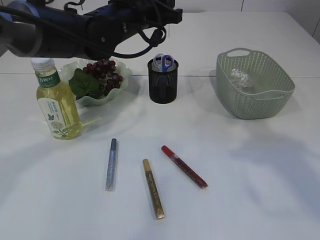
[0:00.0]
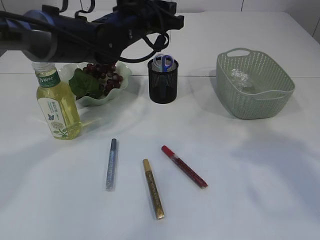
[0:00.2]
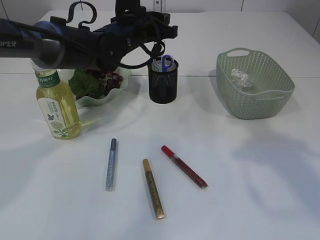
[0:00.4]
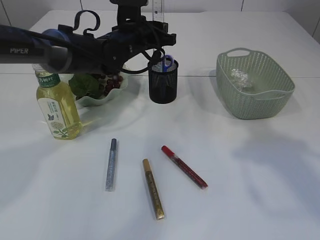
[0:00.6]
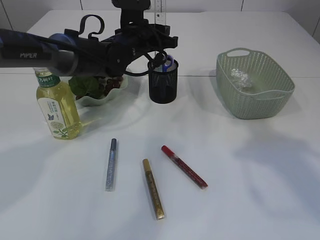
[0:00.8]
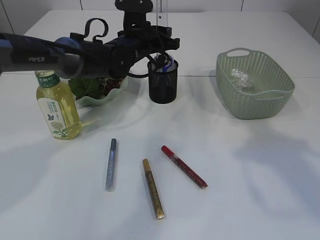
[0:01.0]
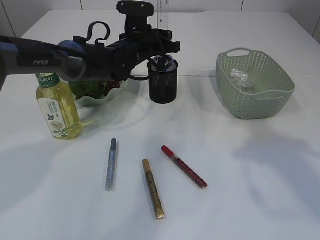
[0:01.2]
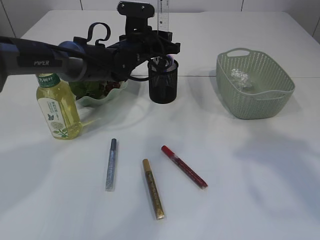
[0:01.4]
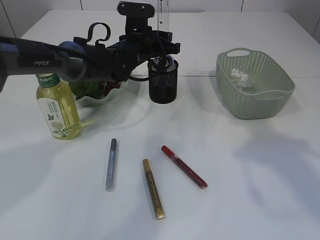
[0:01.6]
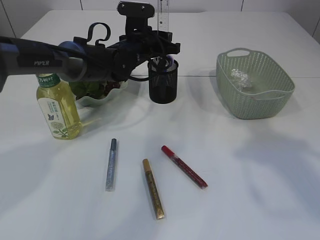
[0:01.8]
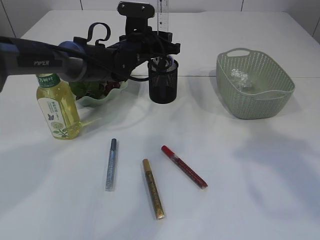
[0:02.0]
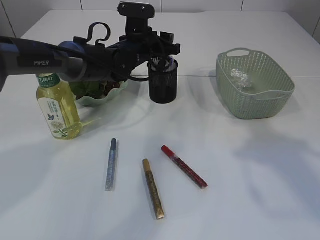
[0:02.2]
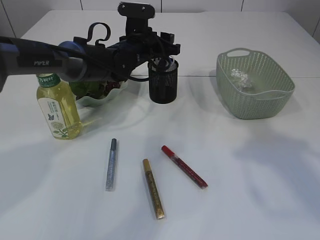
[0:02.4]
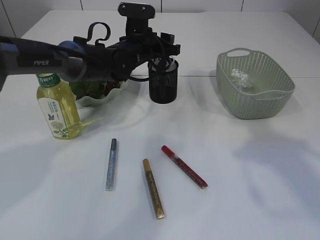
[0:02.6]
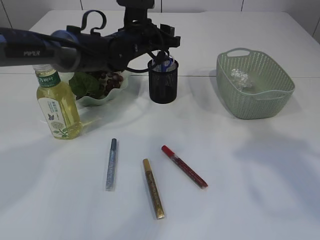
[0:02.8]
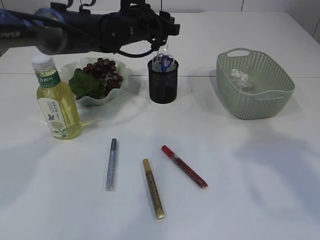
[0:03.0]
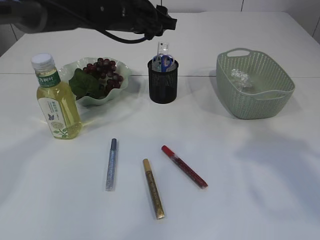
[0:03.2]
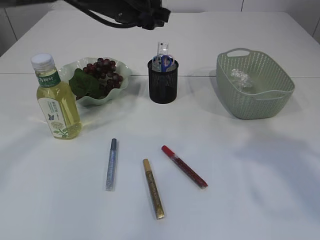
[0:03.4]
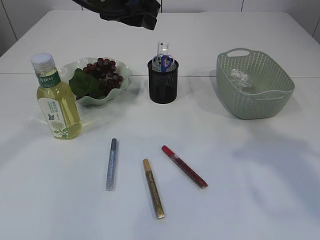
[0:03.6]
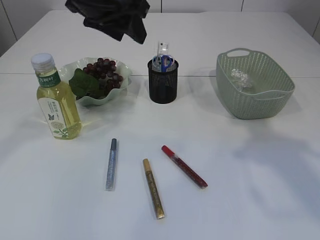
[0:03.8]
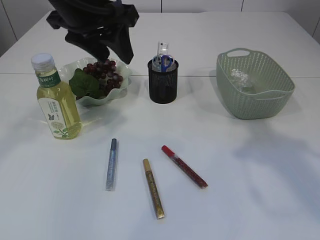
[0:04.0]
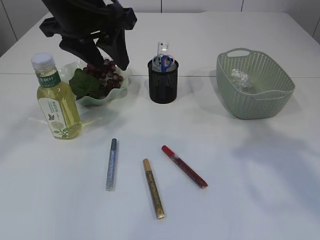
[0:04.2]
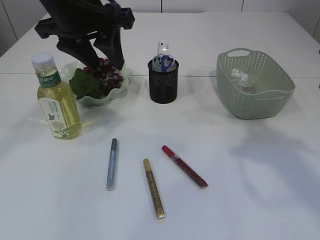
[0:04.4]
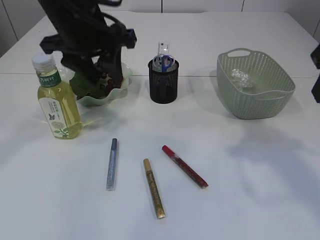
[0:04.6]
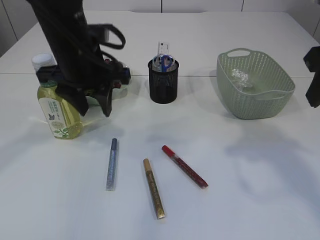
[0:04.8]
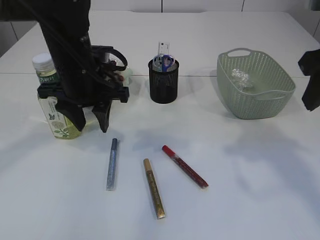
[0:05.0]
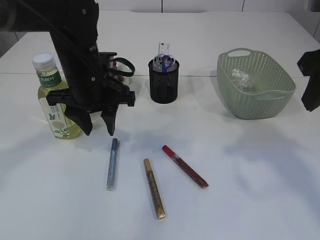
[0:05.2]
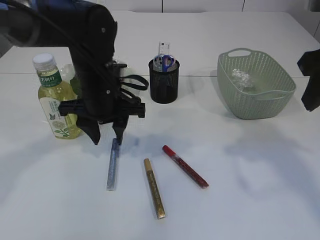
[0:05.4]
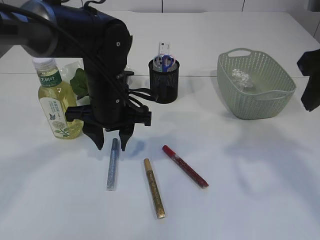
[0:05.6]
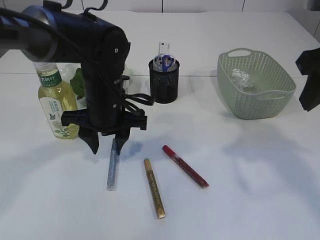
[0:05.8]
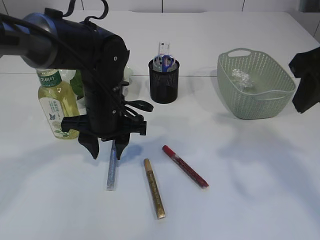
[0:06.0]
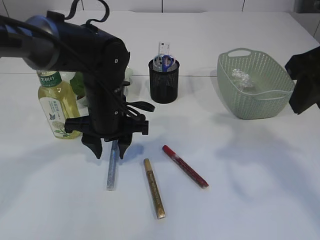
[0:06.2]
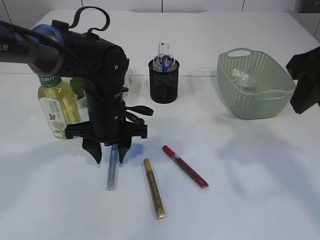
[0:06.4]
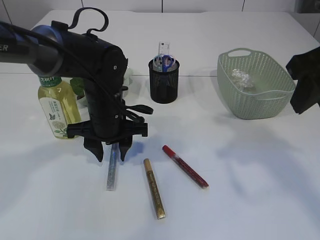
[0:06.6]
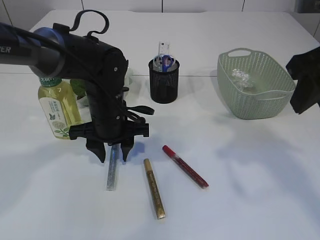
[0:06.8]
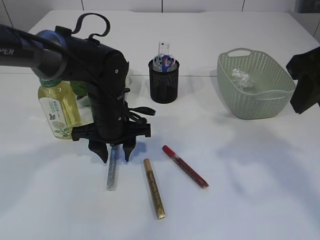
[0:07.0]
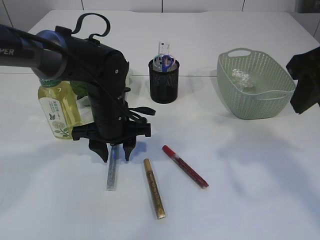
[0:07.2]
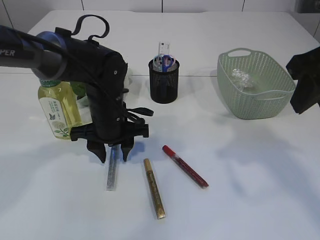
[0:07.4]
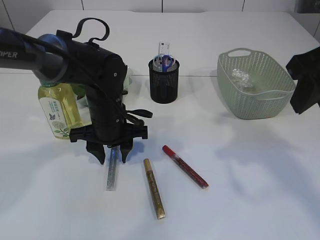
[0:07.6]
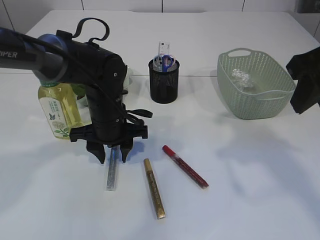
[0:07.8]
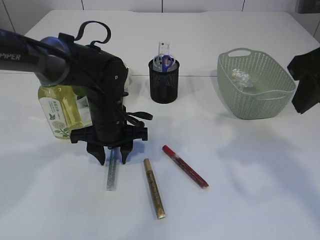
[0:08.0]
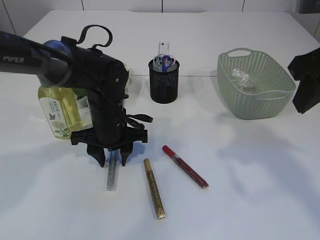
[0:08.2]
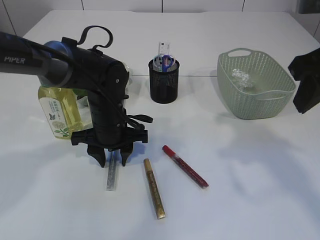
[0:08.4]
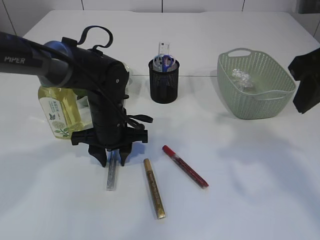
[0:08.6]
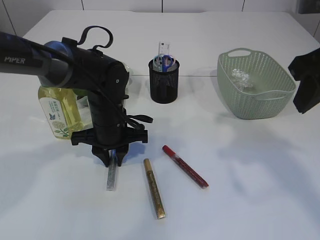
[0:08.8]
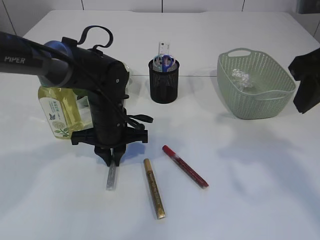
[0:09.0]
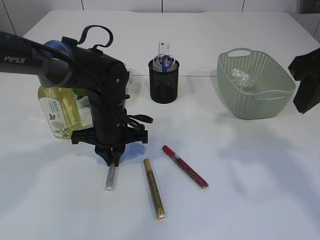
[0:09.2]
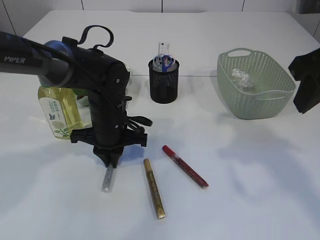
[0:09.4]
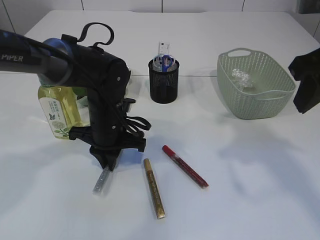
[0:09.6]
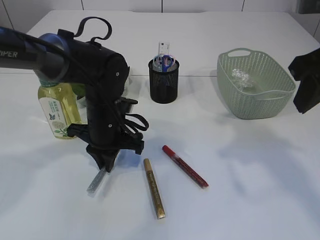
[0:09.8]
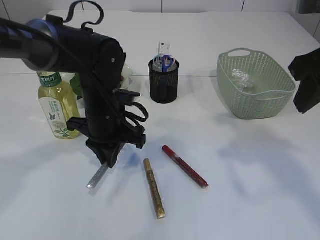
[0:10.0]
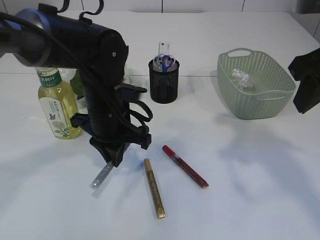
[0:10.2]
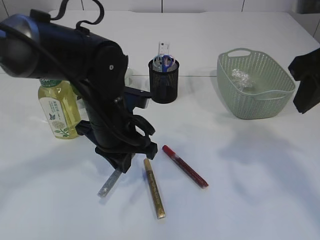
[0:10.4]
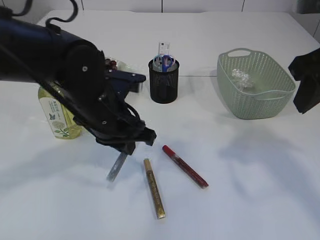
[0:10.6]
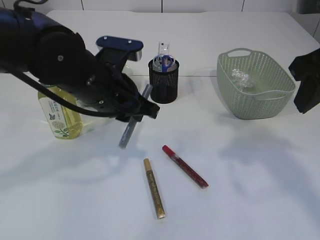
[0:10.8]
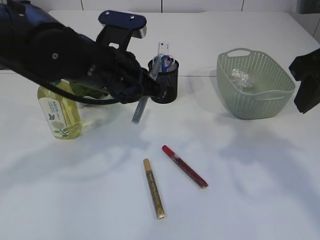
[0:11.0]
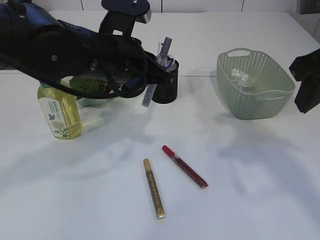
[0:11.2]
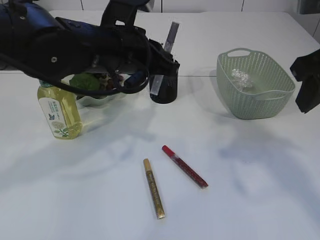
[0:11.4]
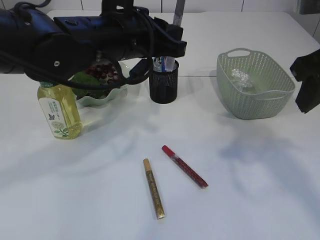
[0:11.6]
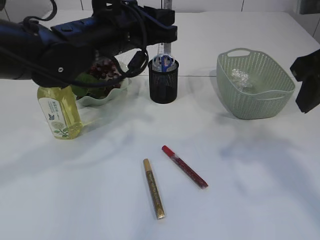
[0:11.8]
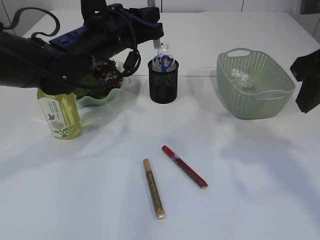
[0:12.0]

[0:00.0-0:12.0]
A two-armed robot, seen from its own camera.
Step, 0:00.0 to 0:03.0: Place the ruler into the pen holder.
Step, 0:03.2 to 0:10.6: pick up the silver glue.
0:00.0 to 0:01.6: The left gripper travels downward and forward by about 10 cm.
0:01.6 to 0:03.0: The left gripper changes place by about 5 cm.
0:03.0 to 0:04.4: The left gripper heads backward, upward and to the left, covering roughly 20 cm.
0:04.4 to 0:06.0: The left gripper shifts approximately 15 cm downward.
0:06.0 to 0:07.6: The grippers move only a little.
0:07.6 to 0:09.0: The left gripper closes up.
0:09.0 to 0:10.4: The left gripper is displaced upward and backward by about 10 cm.
0:10.4 to 0:12.0: The left gripper heads upward and forward, covering approximately 10 cm.

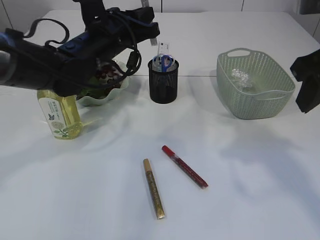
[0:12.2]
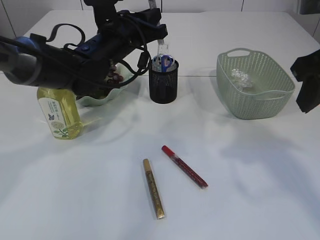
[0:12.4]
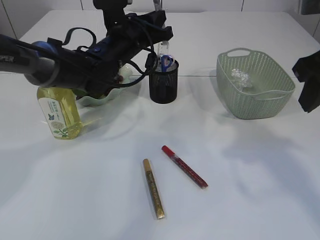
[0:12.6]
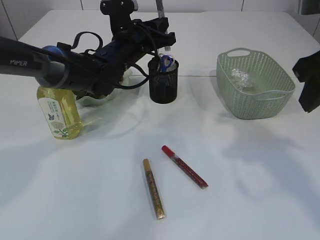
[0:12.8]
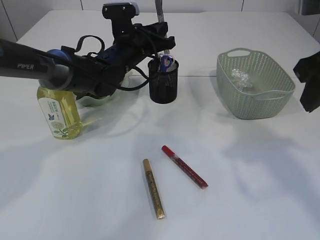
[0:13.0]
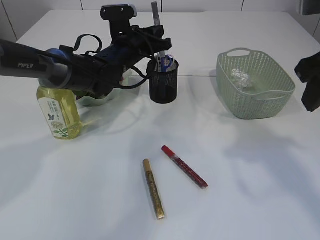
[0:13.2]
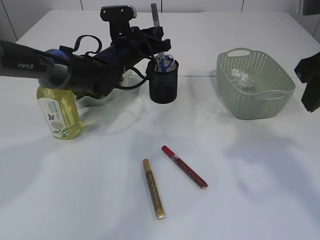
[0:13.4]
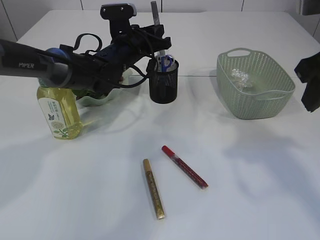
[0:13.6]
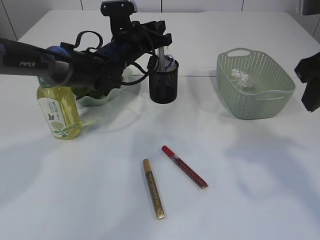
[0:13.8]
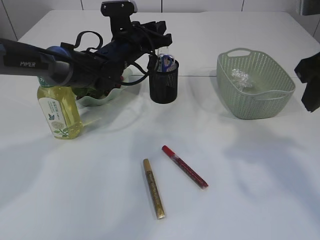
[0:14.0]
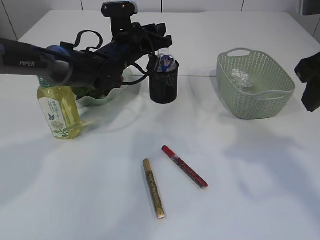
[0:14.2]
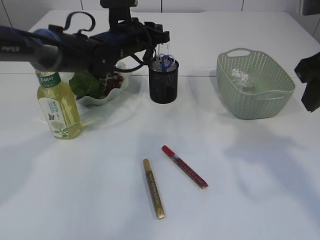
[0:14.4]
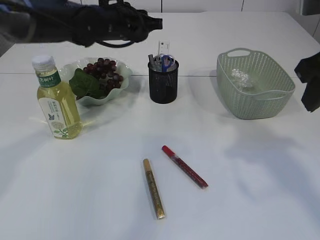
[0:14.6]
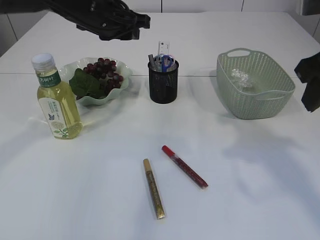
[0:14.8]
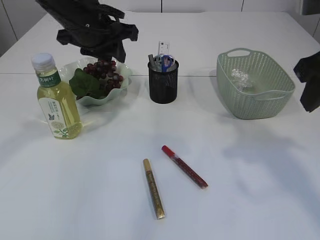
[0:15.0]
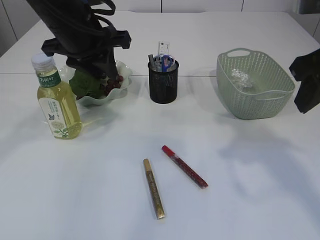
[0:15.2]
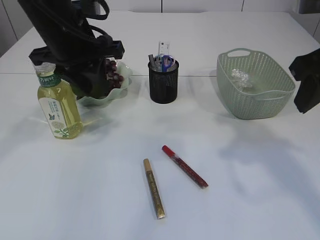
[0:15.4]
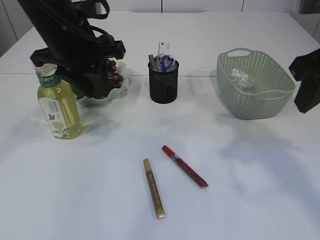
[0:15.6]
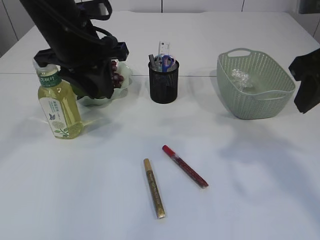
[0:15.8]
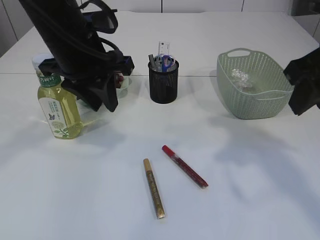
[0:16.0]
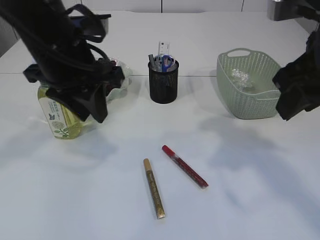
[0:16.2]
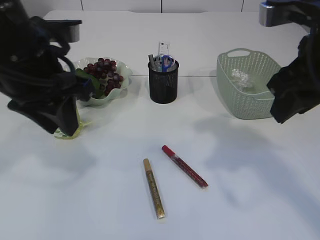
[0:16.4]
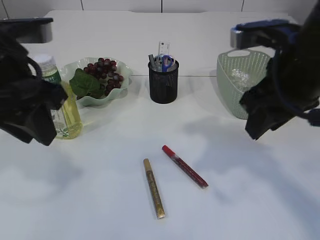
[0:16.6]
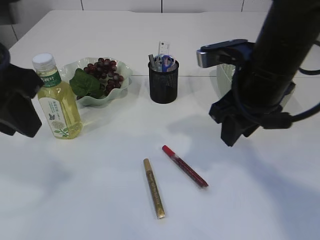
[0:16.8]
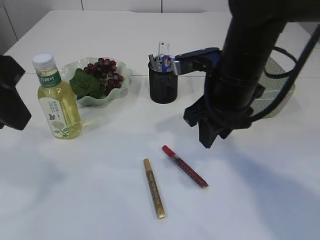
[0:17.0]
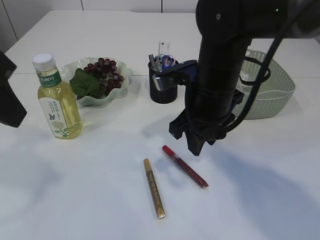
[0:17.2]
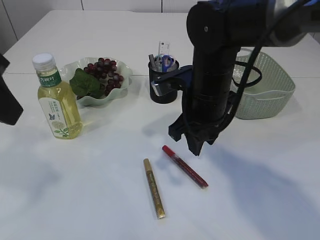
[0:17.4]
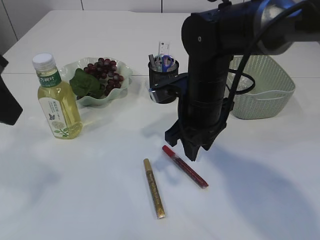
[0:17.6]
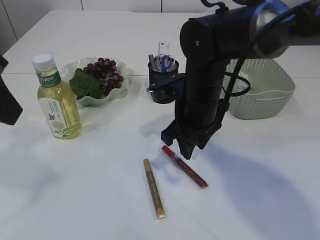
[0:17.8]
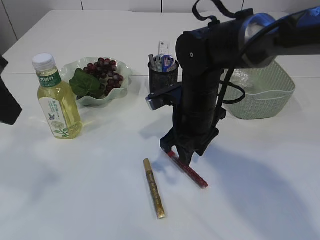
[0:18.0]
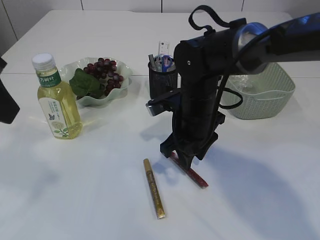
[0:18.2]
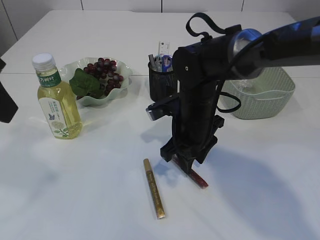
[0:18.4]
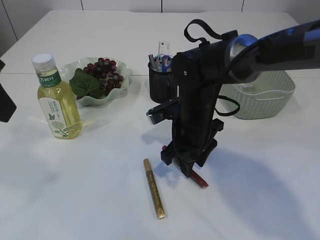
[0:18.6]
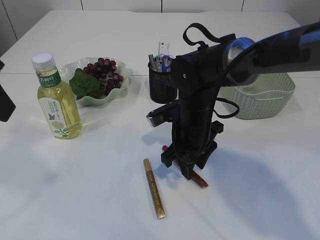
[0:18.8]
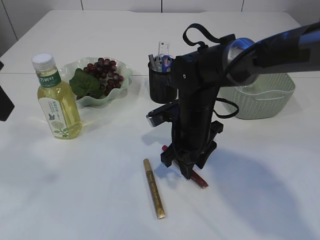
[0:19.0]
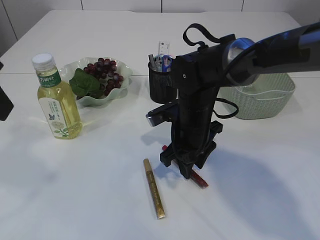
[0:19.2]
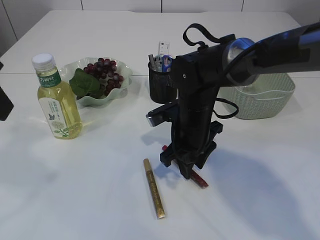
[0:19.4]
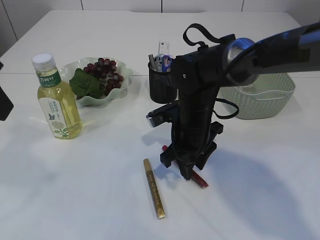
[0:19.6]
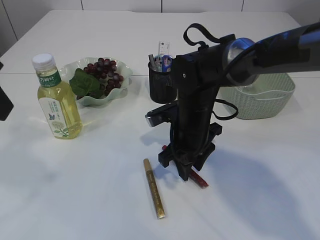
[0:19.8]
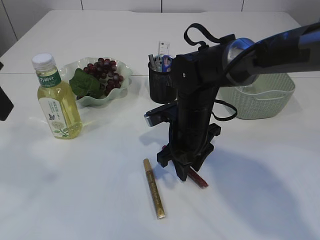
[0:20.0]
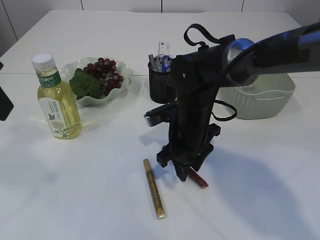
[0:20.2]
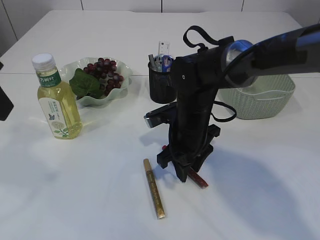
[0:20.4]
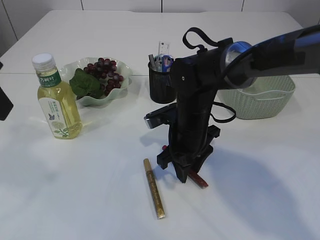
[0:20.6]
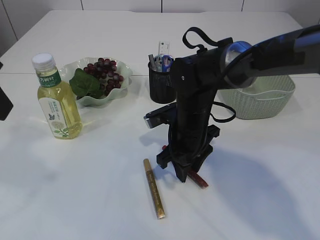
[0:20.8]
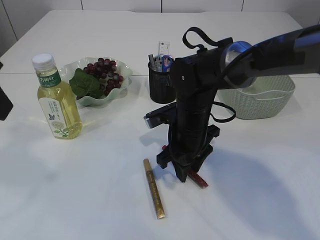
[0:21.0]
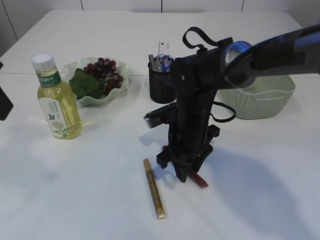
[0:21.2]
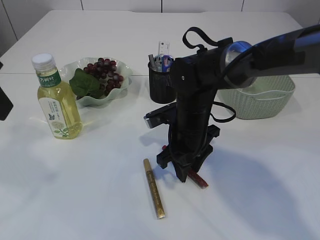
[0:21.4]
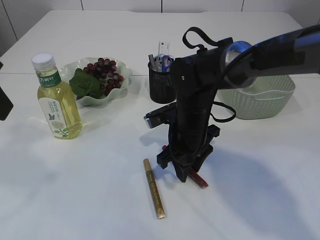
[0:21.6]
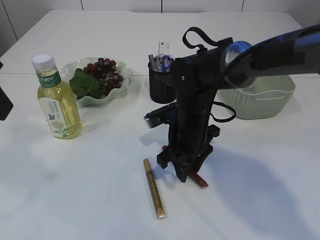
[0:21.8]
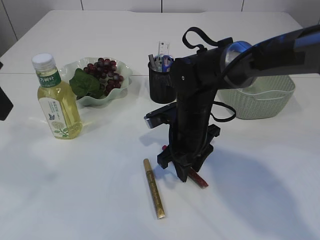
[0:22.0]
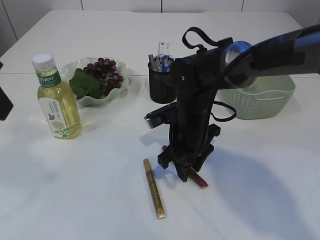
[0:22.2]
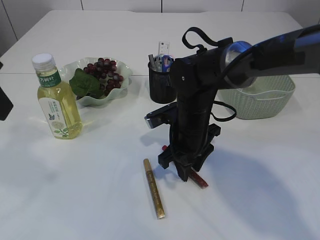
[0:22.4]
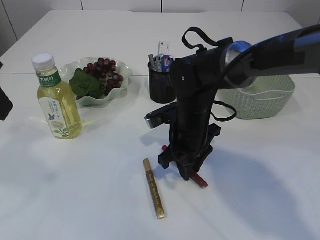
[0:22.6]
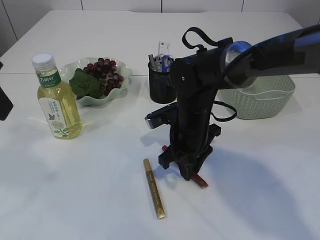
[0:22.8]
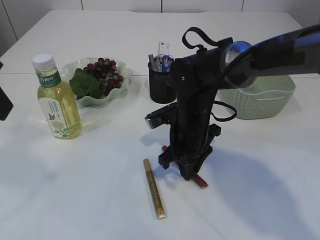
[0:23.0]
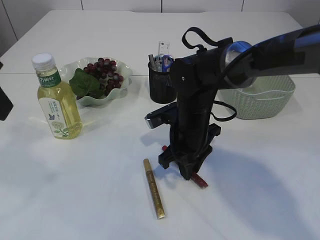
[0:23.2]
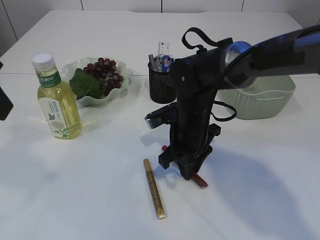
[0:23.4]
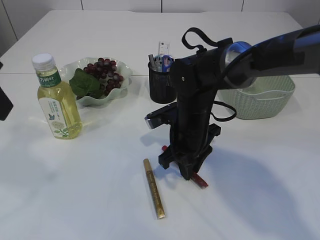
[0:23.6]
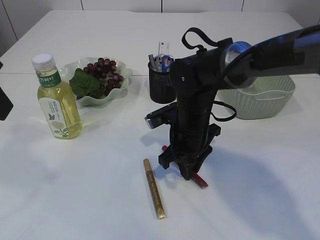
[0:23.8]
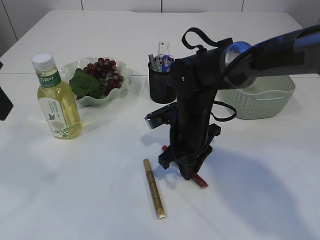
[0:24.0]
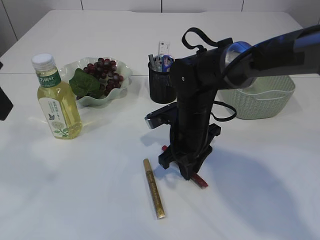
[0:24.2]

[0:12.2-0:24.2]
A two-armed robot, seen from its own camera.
Step, 0:12.2 to 0:14.2: place the silver glue into the pen holder.
0:12.2 to 0:13.8: The left gripper goes about 10 cm forward and downward.
0:13.8 to 0:15.2: The left gripper shifts some 15 cm backward, upward and to the left.
0:15.2 to 0:16.6: The right gripper shifts roughly 5 cm to the left, while the left gripper goes approximately 15 cm backward.
0:16.6 to 0:18.2: The left gripper heads upward, covering some 5 cm. Meanwhile the right gripper heads downward, to the left and forward, covering some 20 cm.
0:18.2 to 0:19.8: There are only small adjustments of the grippers.
0:19.8 to 0:24.2: Both grippers stay put.
